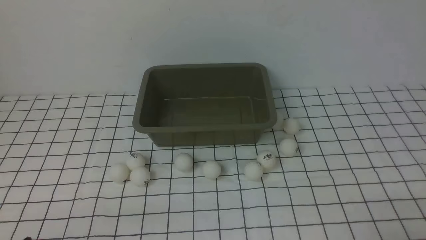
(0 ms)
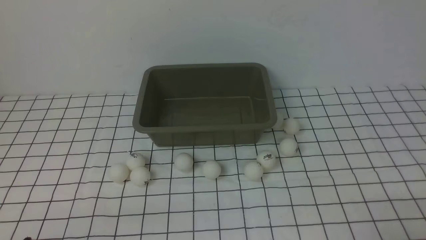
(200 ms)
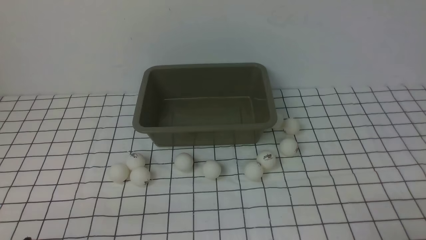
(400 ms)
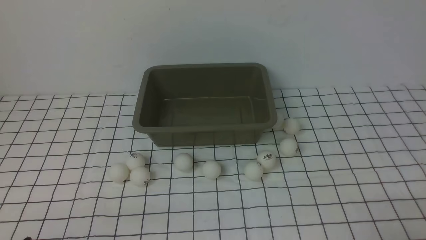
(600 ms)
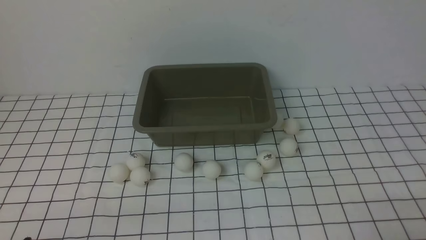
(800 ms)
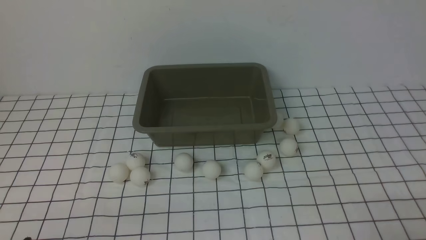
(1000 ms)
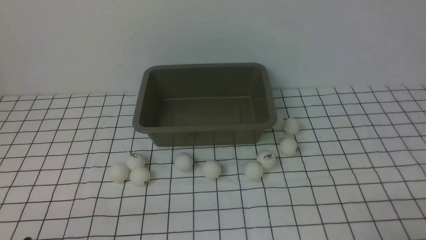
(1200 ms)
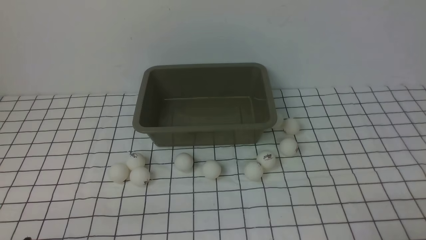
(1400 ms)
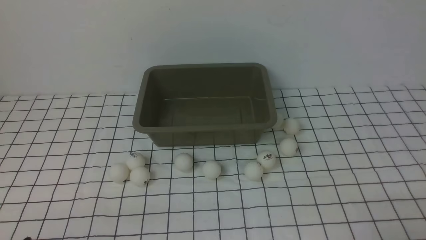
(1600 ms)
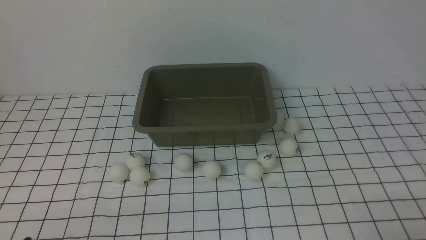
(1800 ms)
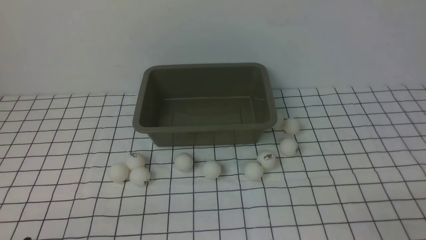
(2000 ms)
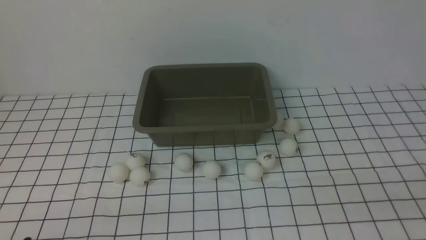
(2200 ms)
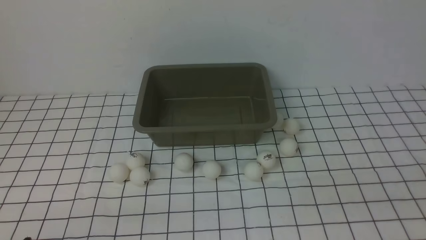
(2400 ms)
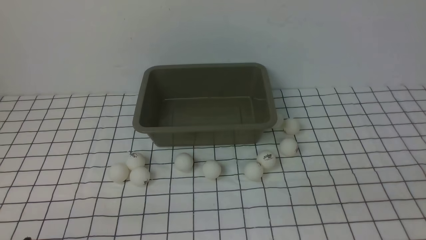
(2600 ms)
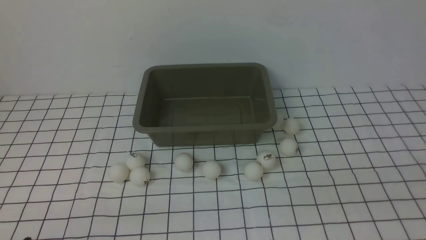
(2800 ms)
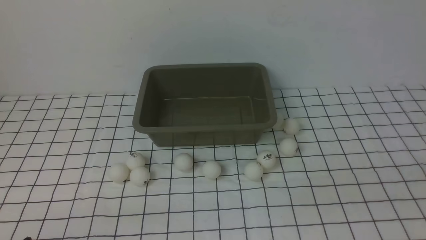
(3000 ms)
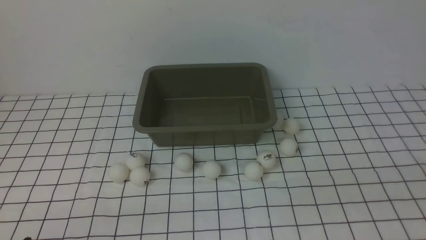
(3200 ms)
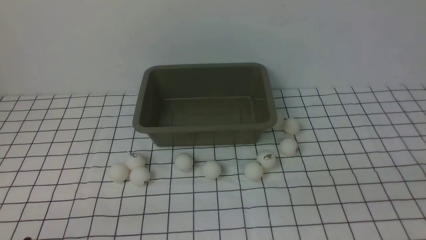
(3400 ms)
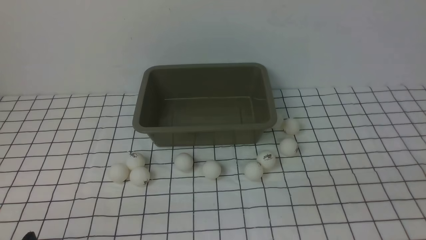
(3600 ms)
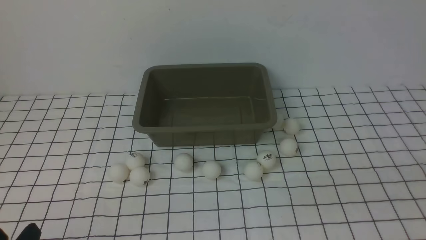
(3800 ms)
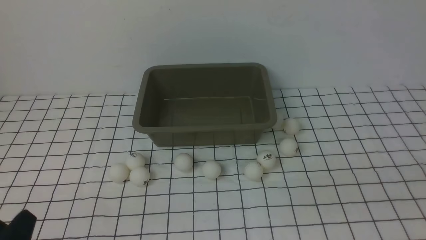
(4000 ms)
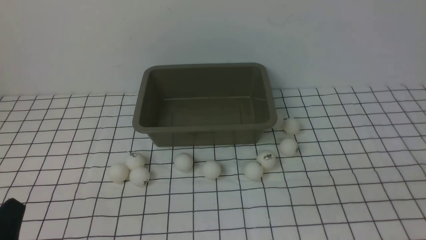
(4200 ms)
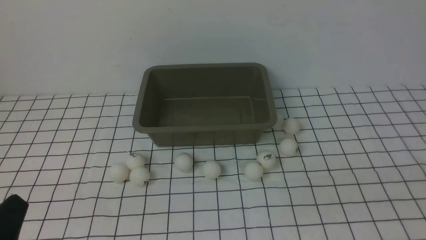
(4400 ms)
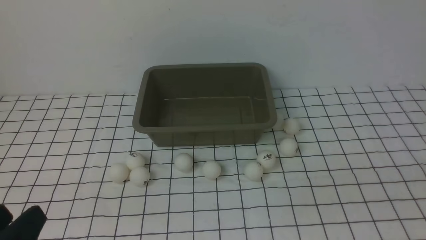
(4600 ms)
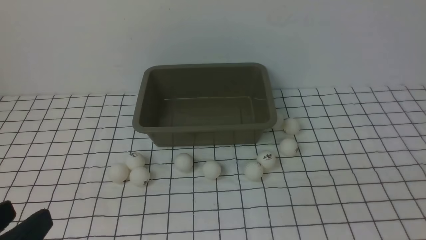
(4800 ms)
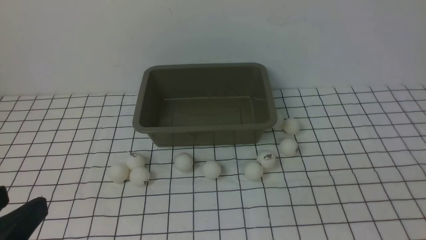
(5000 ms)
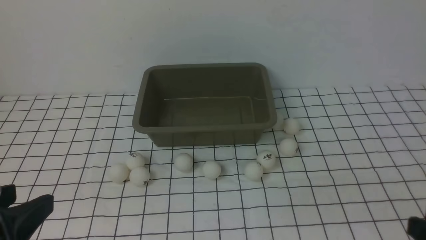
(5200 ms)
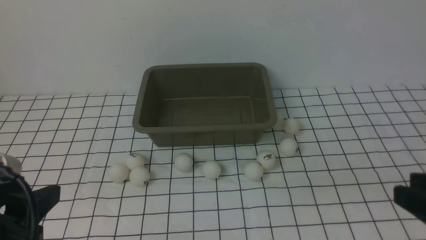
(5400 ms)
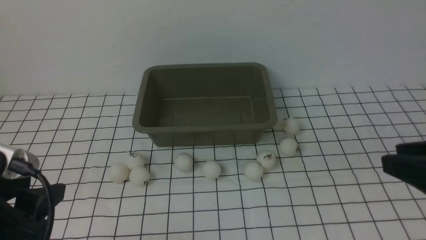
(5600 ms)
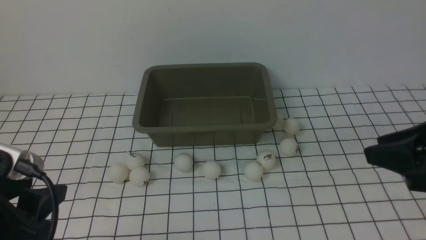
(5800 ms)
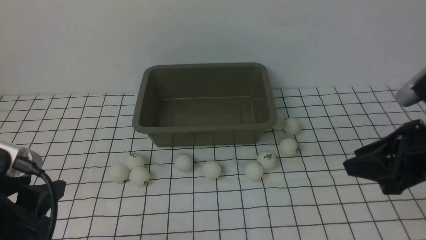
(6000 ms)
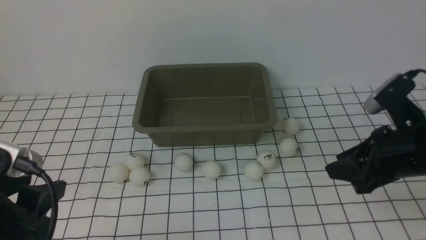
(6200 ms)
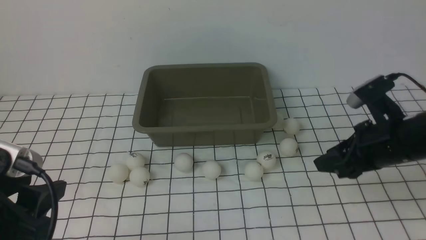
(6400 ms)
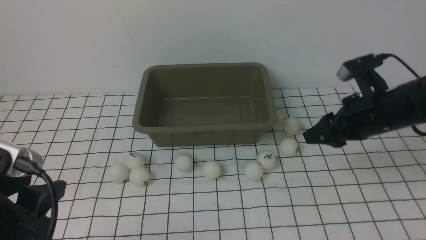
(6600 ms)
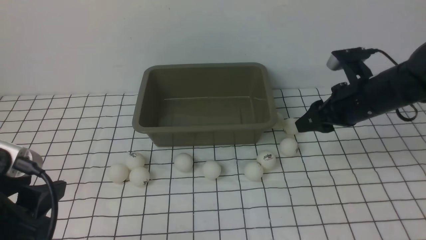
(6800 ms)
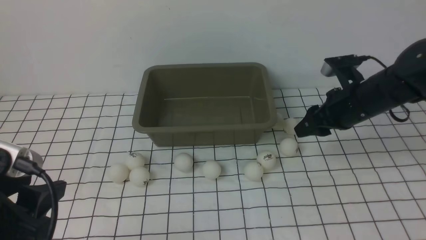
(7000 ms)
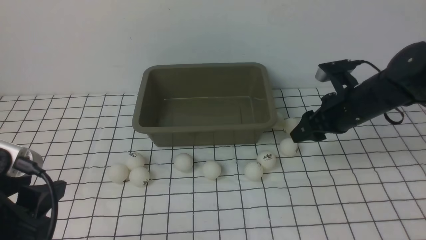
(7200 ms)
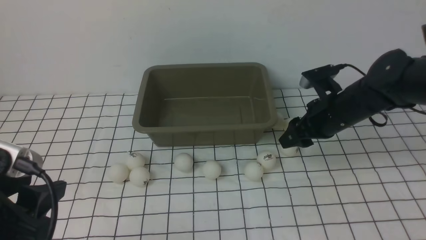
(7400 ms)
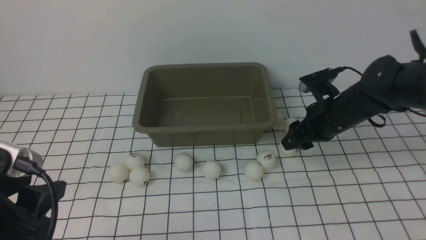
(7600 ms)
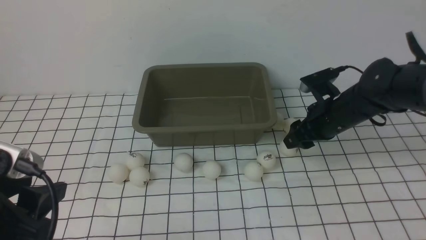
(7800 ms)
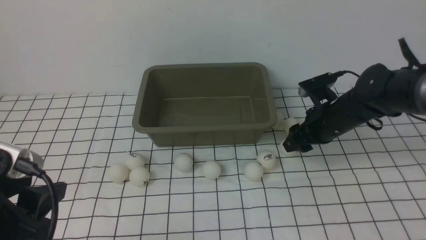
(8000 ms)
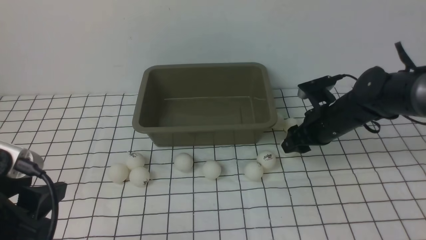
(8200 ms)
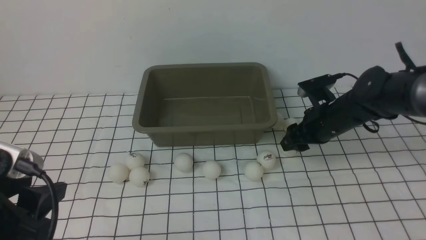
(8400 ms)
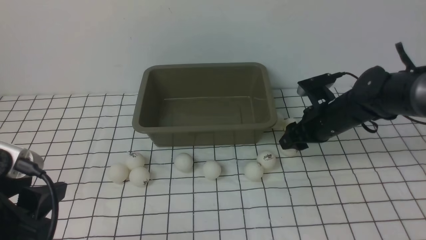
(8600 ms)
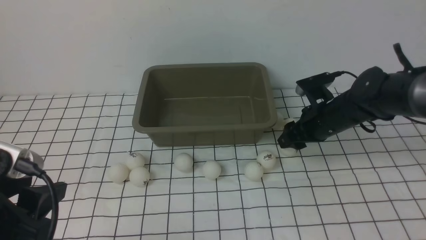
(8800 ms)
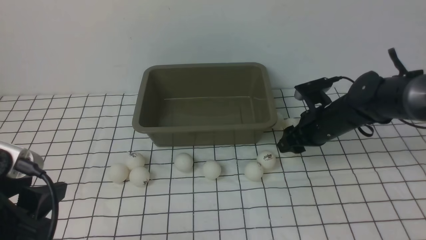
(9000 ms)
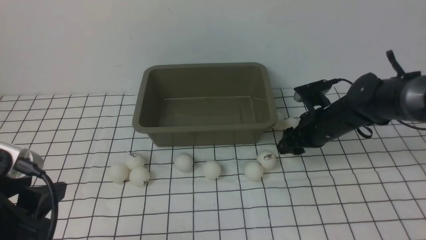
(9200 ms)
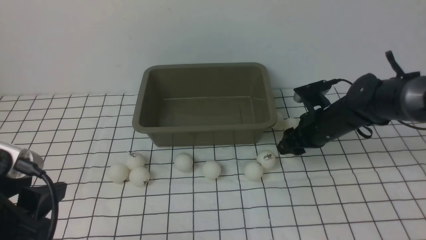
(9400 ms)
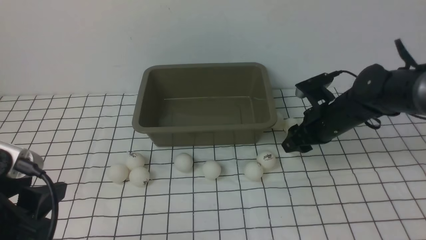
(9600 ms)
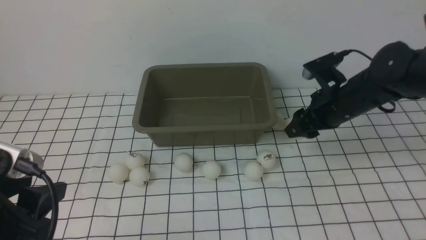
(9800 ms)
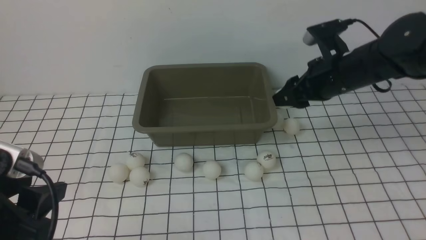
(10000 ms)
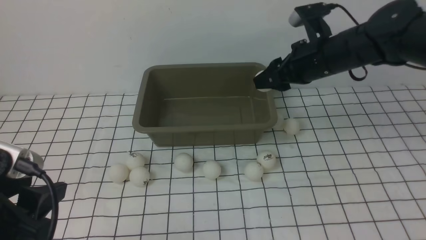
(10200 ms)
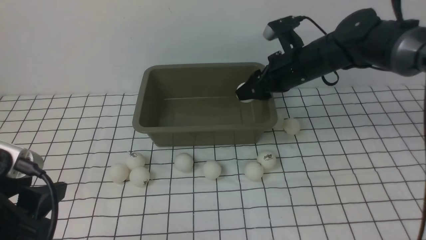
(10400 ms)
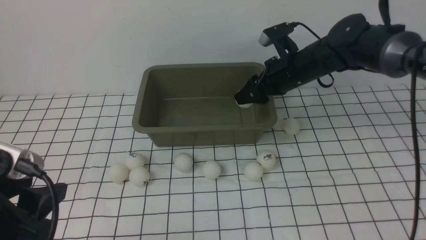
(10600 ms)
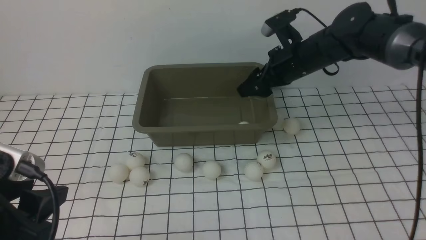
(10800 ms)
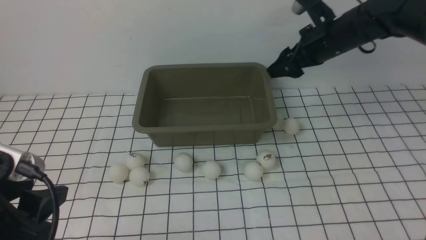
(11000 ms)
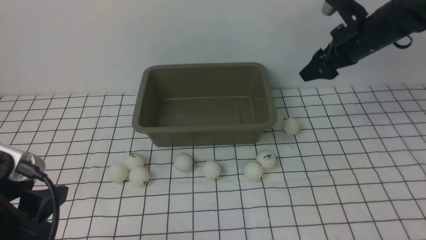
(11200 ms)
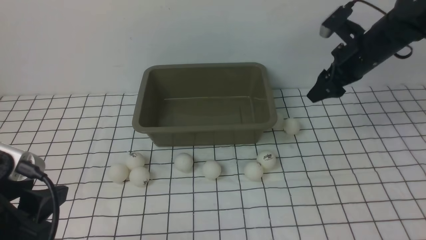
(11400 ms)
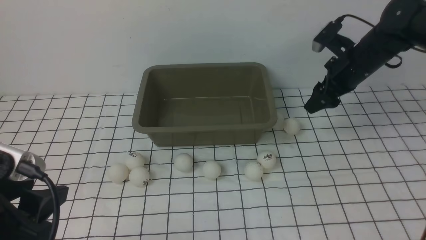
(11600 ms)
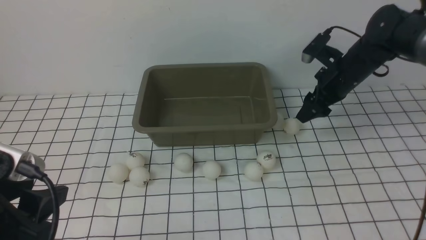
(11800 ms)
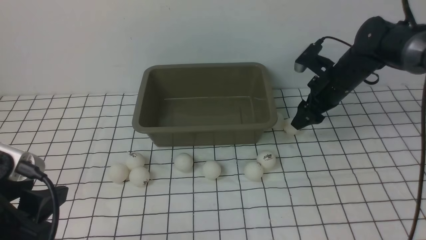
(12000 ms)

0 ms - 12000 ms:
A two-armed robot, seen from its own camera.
Step, 0 ms - 9600 ms: use the right arm to clamp the table tennis ball closest to it.
Step, 10000 ms - 10800 ms: use the right arm to put the table tennis ball into the box.
3000 ms - 4400 ms: The left gripper moves upward, approximately 5 cm.
4400 ms - 6000 ms: The left gripper shifts some 10 cm forward and upward; the right gripper is displaced forward by some 20 cm.
6000 ms - 7600 ms: The right gripper heads forward and downward, covering about 20 cm, and opens.
7600 ms - 9000 ms: The grippers make only small movements.
9000 ms - 10400 ms: The right gripper travels upward by approximately 10 cm.
10400 ms - 12000 ms: The right gripper travels to the right and downward by about 10 cm, and opens up.

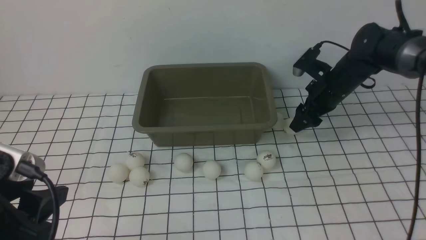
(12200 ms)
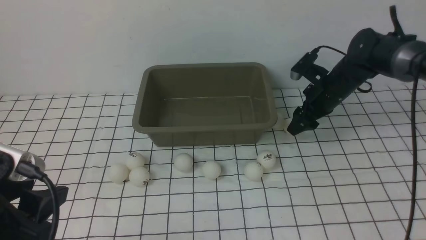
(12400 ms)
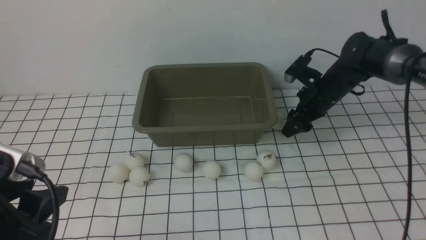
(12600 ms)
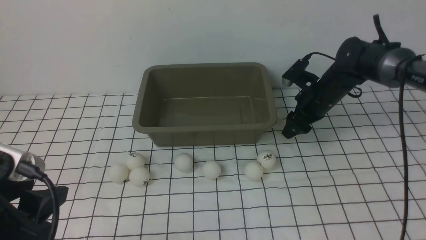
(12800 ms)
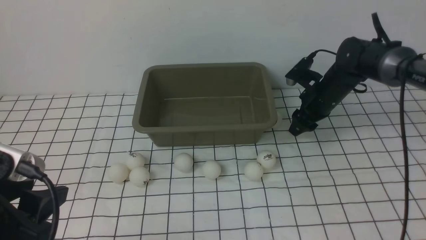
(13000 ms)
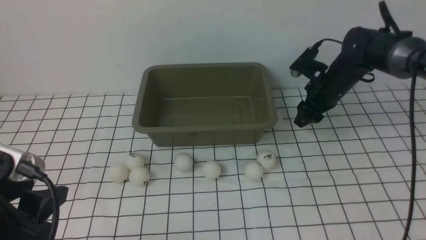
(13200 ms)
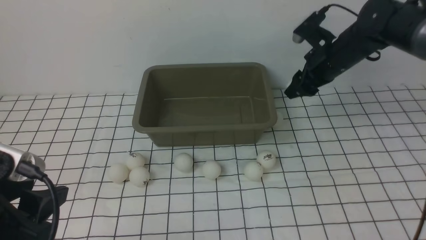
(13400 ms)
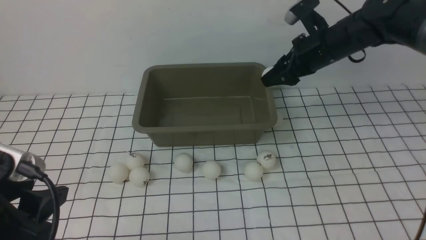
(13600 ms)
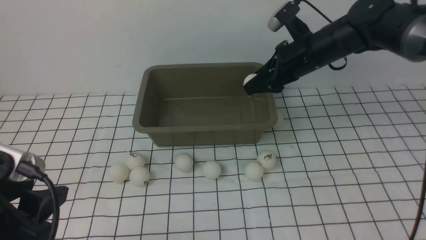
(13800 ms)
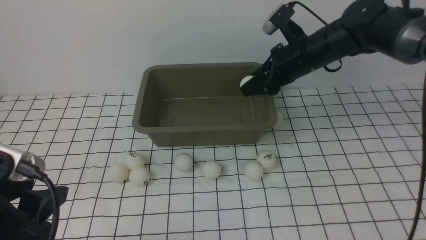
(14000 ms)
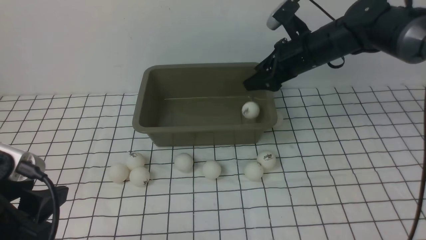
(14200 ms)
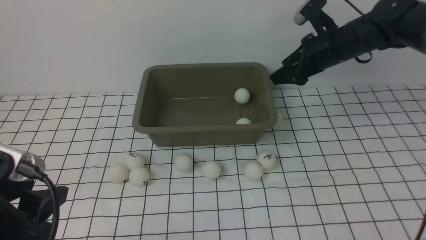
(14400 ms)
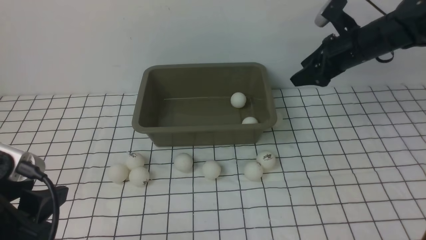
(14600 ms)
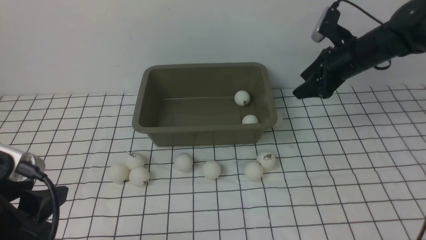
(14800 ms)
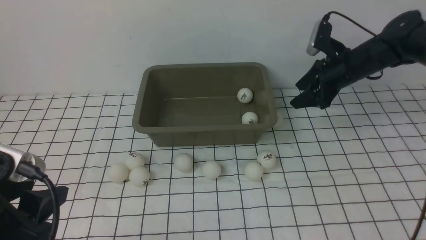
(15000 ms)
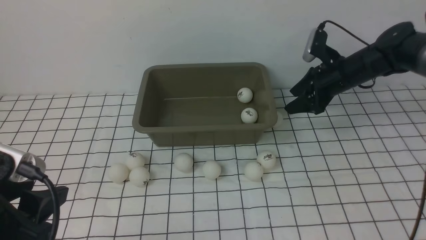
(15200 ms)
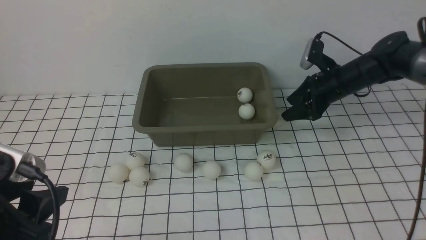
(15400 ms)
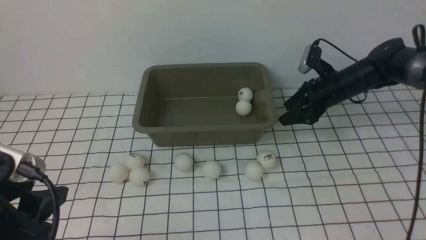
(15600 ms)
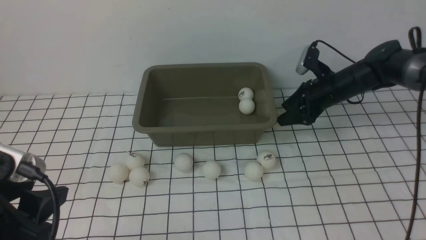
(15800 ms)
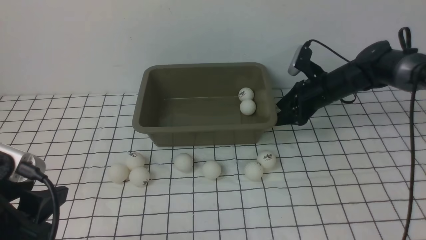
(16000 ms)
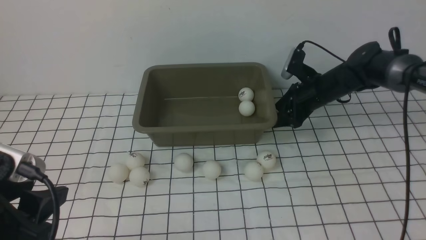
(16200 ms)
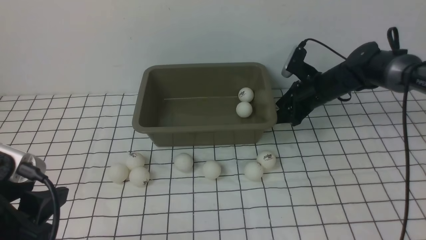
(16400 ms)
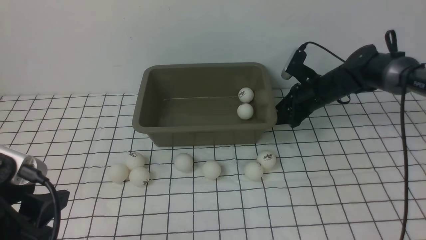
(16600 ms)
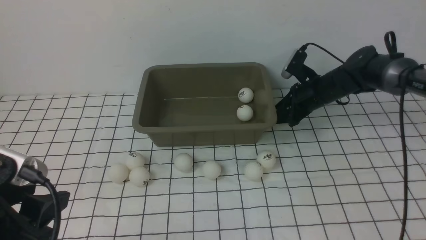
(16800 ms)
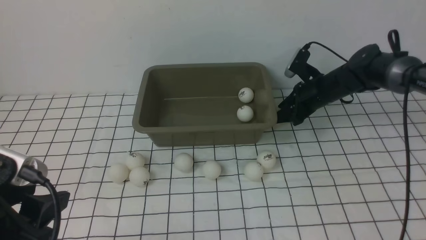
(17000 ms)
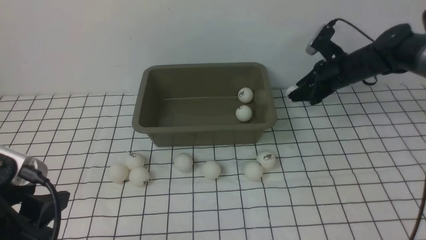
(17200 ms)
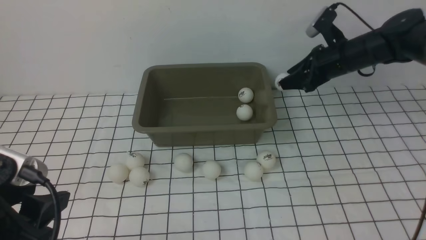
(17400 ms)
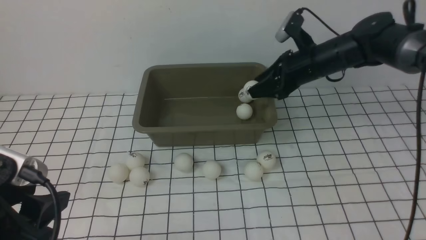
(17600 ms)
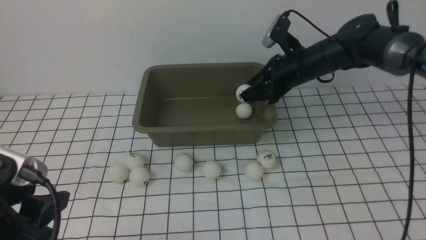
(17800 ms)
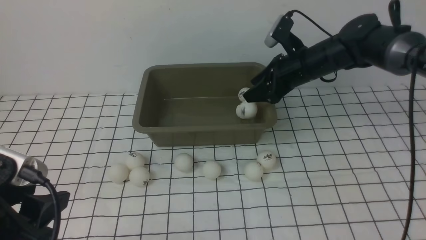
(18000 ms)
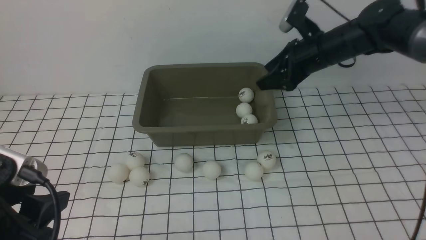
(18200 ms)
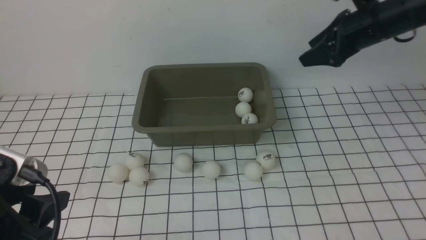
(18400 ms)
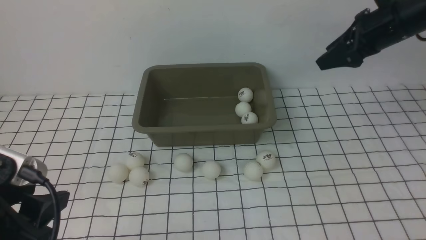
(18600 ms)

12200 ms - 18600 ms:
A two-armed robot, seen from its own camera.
Step, 12200 ms - 13400 ms: use the right arm to clamp the table tennis ball closest to it.
Step, 13600 ms - 14200 ms: use the right arm to put the table tennis ball into the box.
Step, 14400 ms - 17200 ms: use the right arm to clamp the table tennis ball closest to it.
Step, 17400 ms - 18000 ms: use the right arm to put the table tennis ball into the box.
12200 ms - 13800 ms: The right gripper goes about 10 cm upward and to the left, and closes.
13800 ms - 15400 ms: The right gripper moves downward and to the right, about 10 cm.
15400 ms - 17000 ms: The right gripper closes its fingers.
17000 ms - 18600 ms: The right gripper is displaced upward by about 15 cm.
